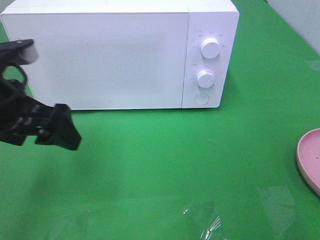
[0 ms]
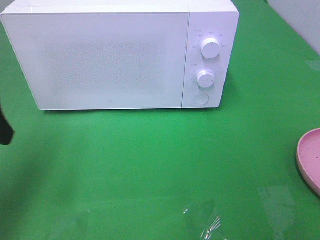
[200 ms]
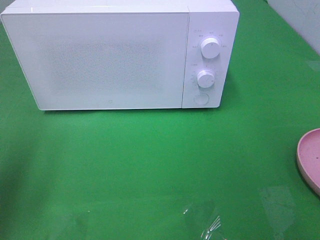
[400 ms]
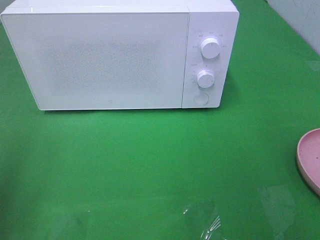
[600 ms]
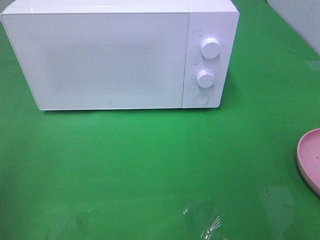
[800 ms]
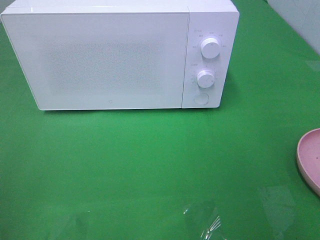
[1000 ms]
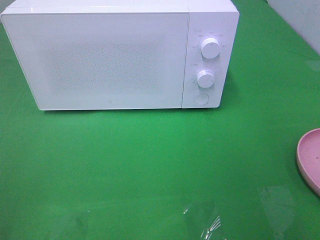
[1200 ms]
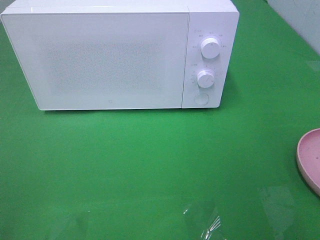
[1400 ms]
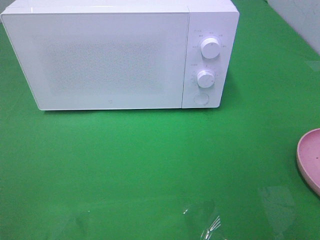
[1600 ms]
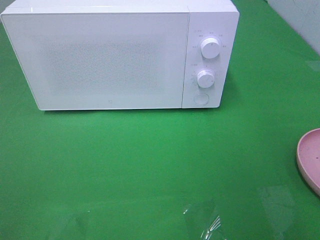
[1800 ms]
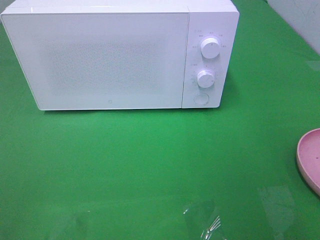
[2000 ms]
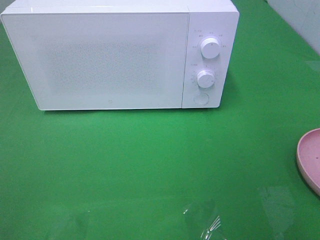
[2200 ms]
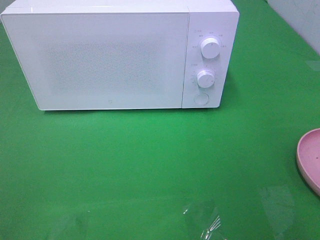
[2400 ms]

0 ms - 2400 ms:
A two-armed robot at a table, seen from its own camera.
Task of the whole recording: Heat the burger.
0 ms - 1200 ms: The left gripper heads backward and to the left, covering some 20 cm.

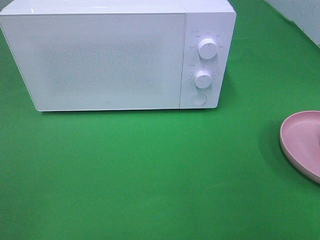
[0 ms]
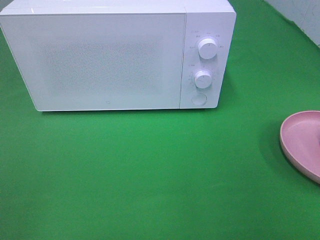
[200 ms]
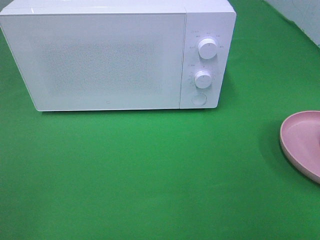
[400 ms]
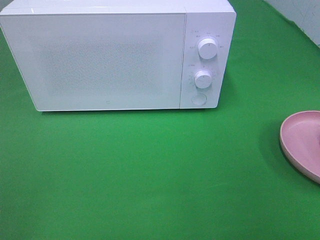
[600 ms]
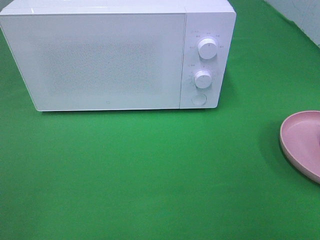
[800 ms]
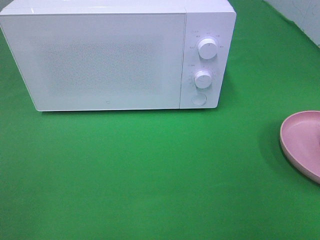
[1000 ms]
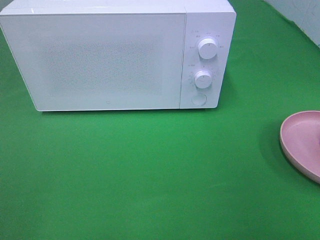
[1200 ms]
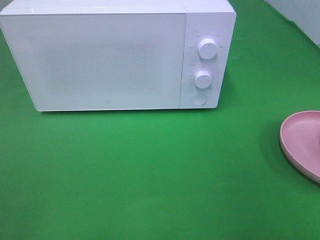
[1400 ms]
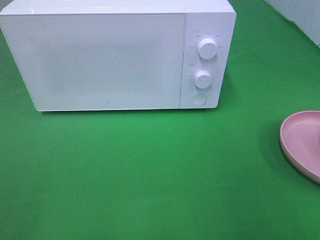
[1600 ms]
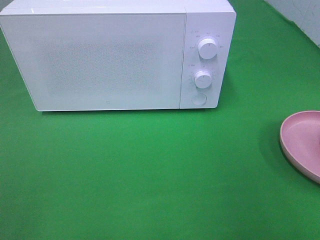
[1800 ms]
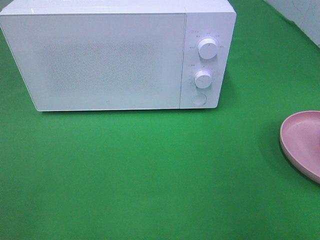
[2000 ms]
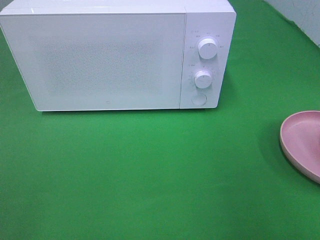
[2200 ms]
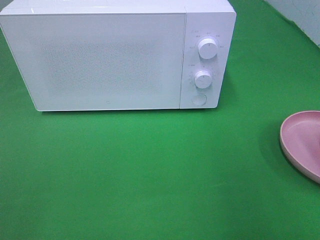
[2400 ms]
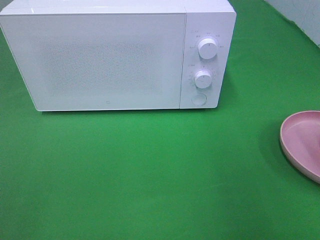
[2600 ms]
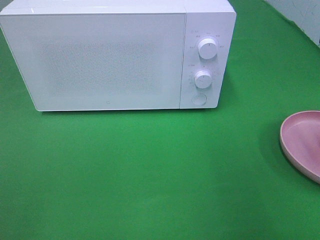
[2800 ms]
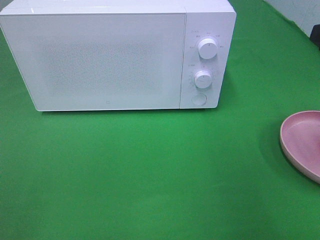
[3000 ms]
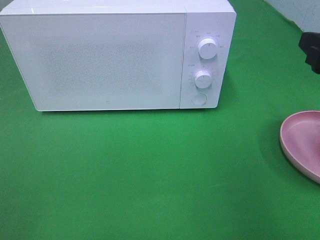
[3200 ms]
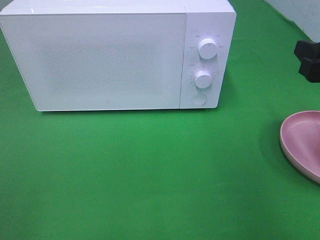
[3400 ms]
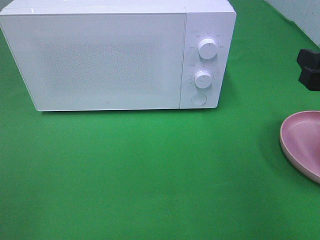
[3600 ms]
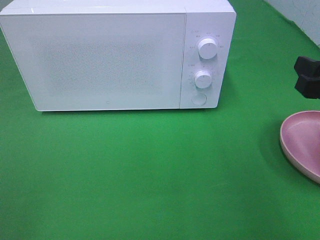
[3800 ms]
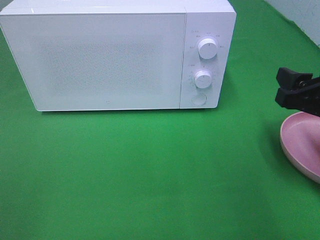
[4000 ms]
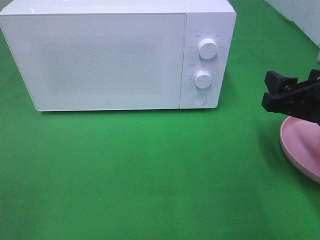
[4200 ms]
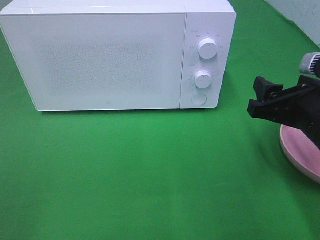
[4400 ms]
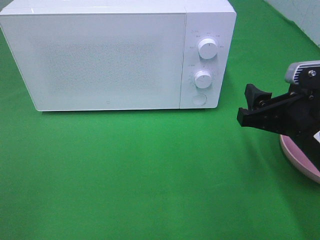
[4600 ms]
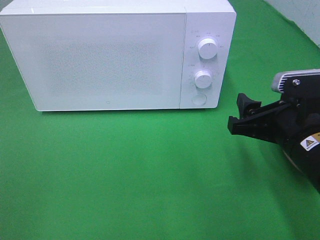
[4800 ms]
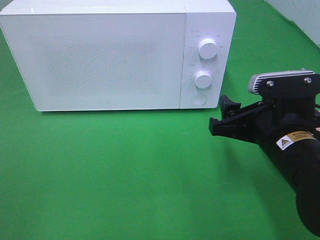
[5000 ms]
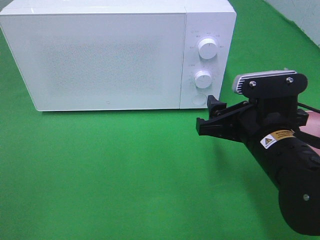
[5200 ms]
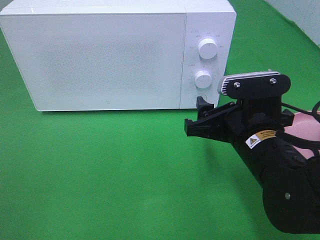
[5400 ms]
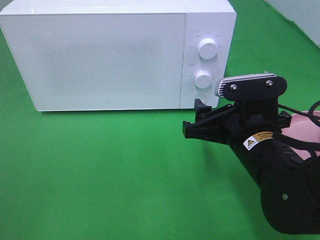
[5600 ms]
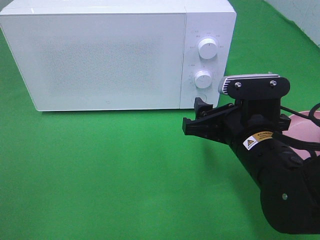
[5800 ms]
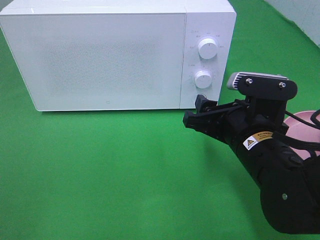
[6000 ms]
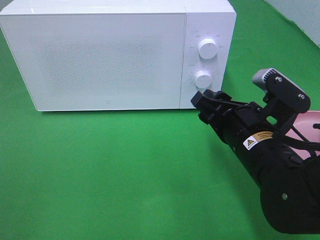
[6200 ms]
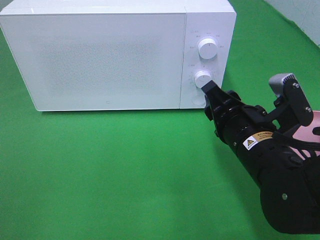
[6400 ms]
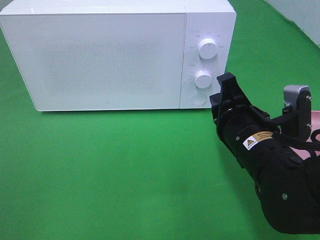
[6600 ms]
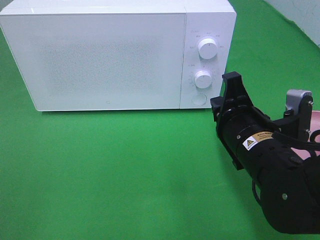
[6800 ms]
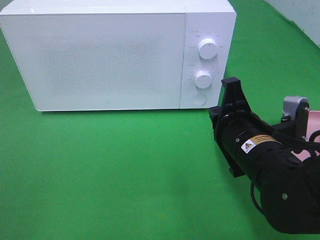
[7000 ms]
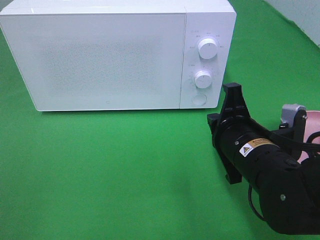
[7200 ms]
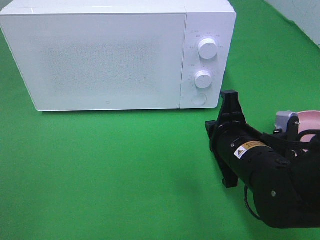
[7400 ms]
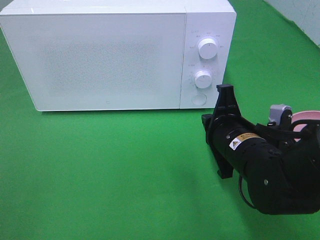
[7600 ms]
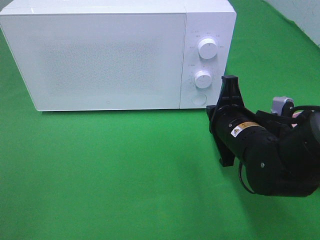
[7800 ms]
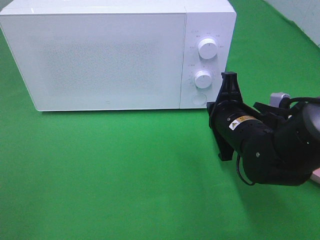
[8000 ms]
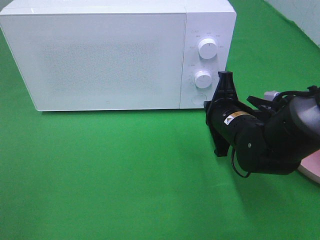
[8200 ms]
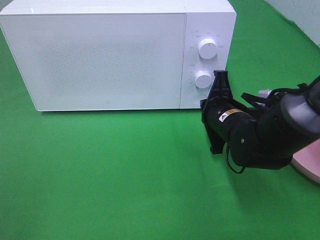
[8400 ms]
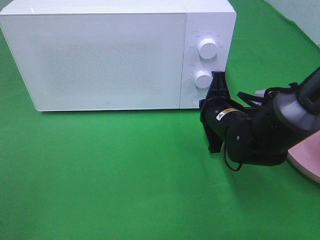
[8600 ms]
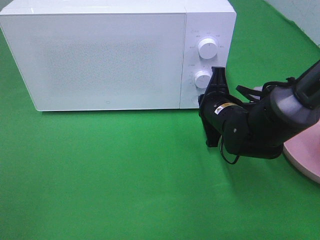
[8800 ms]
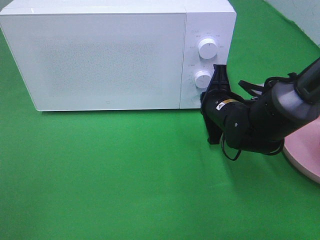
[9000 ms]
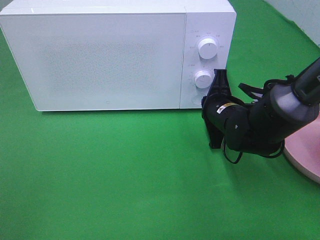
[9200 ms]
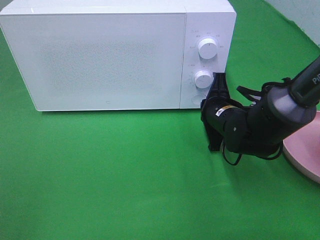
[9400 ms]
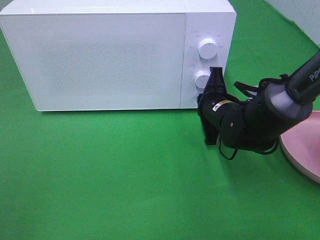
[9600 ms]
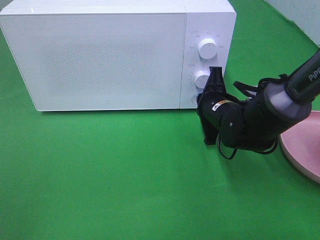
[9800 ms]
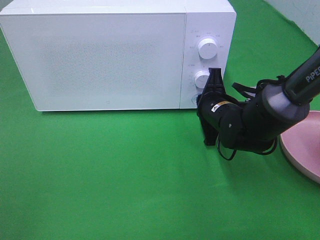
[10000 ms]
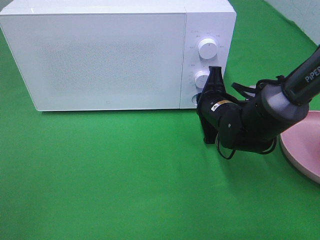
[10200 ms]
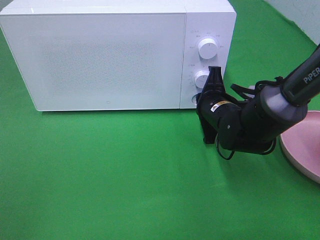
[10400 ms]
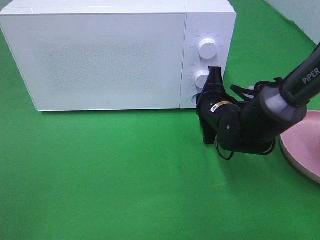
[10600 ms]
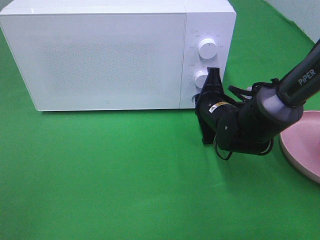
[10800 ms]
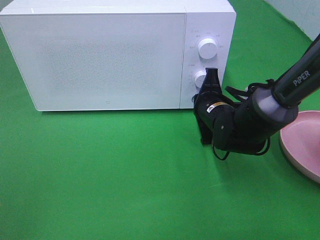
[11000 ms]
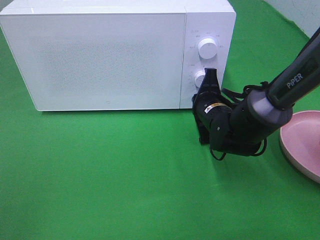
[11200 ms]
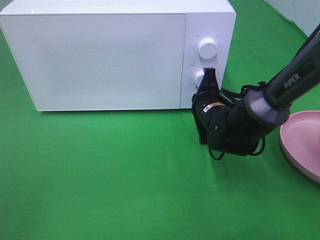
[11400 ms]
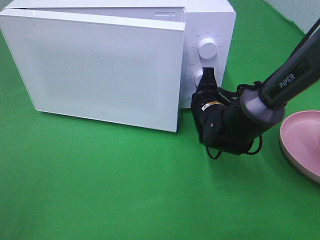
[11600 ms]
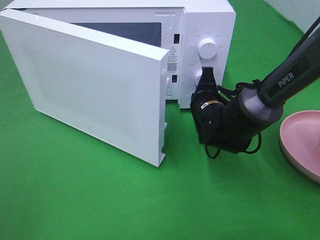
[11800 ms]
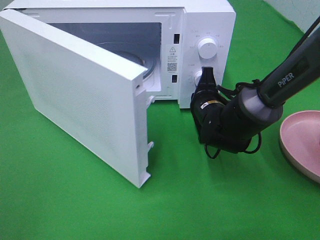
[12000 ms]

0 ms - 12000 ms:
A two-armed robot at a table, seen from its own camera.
Task of the whole recording: Heat the burger.
3000 ms - 4400 ms: The right gripper moves downward and to the left, roughly 10 cm.
4400 ms - 6000 ms: The right gripper moves to the left, about 10 cm.
6000 ms - 7600 ms: The right gripper closes up.
7600 ms - 9000 ms: The right gripper moves forward, about 10 cm.
9000 ms - 10400 ms: There are only small adjustments of the grippers.

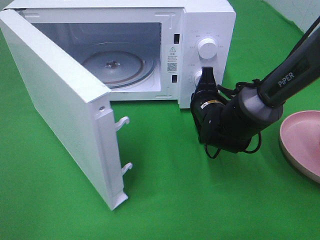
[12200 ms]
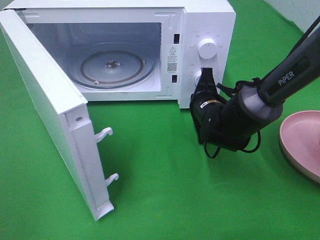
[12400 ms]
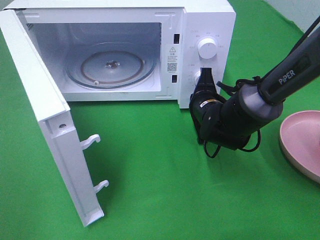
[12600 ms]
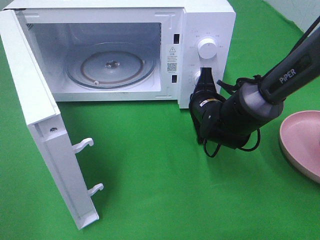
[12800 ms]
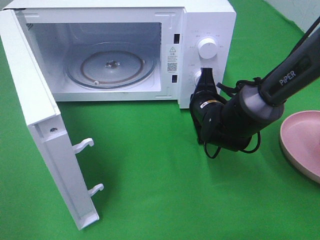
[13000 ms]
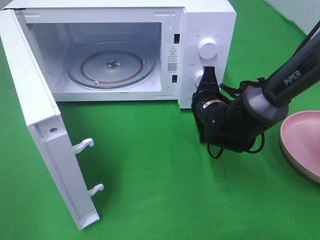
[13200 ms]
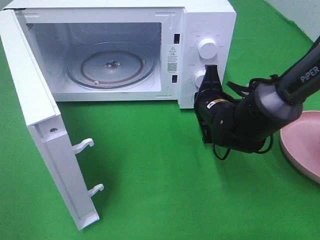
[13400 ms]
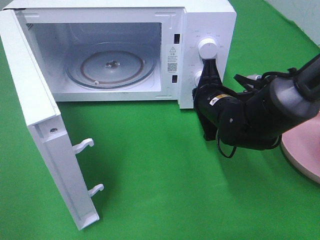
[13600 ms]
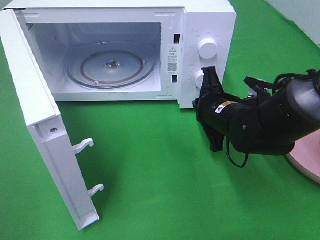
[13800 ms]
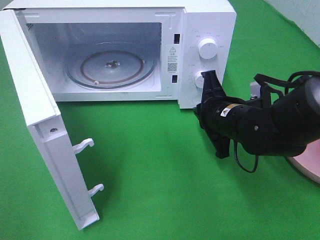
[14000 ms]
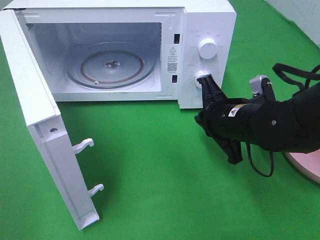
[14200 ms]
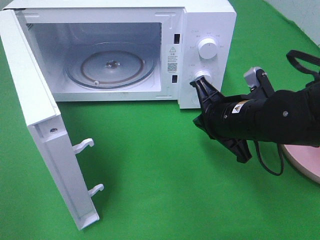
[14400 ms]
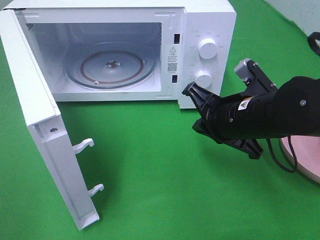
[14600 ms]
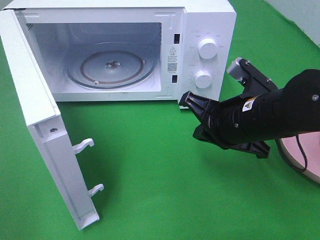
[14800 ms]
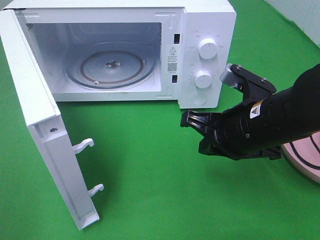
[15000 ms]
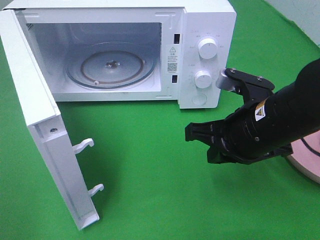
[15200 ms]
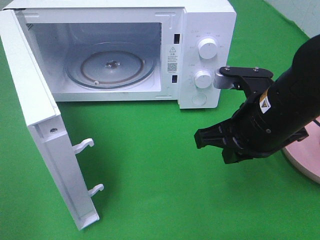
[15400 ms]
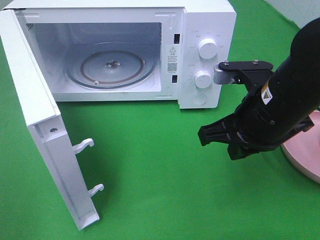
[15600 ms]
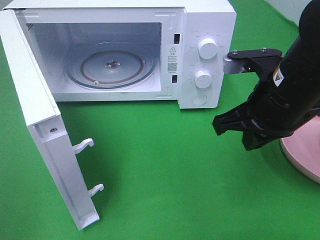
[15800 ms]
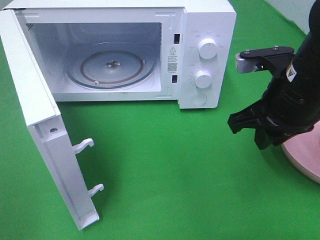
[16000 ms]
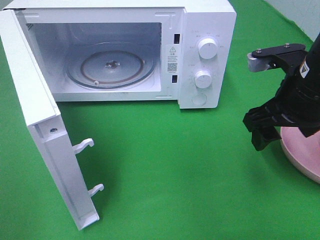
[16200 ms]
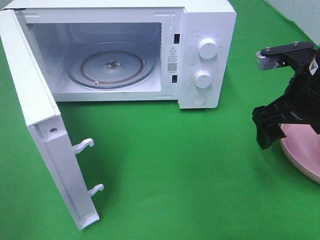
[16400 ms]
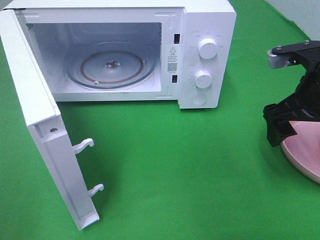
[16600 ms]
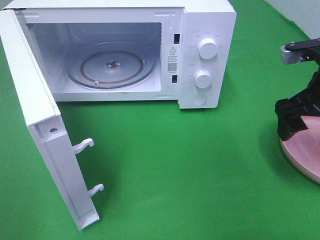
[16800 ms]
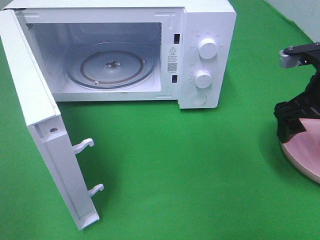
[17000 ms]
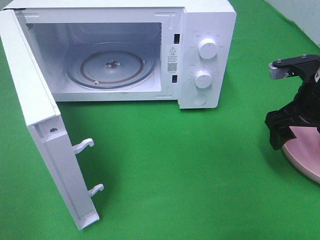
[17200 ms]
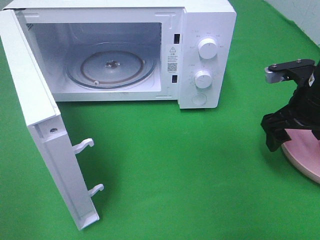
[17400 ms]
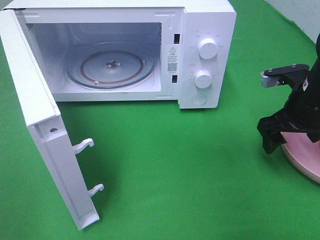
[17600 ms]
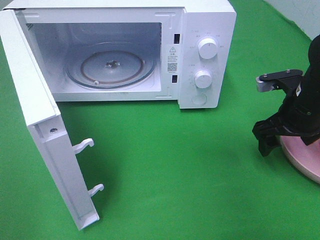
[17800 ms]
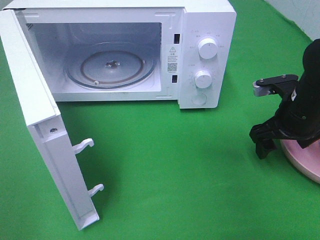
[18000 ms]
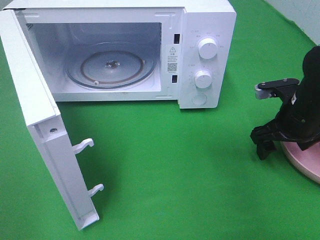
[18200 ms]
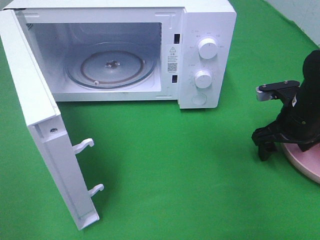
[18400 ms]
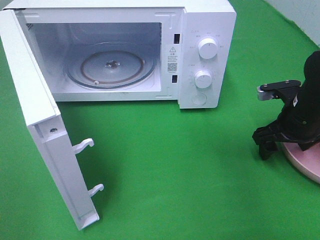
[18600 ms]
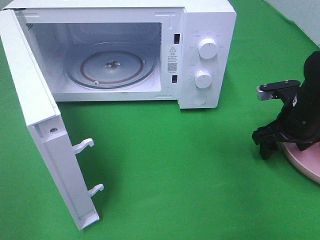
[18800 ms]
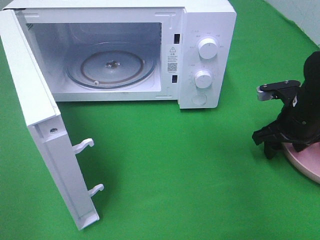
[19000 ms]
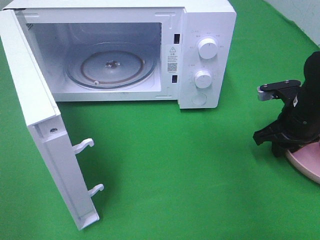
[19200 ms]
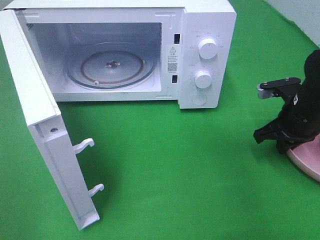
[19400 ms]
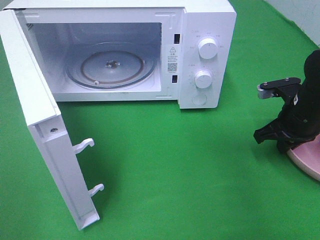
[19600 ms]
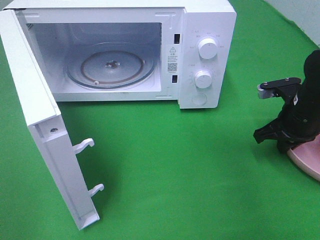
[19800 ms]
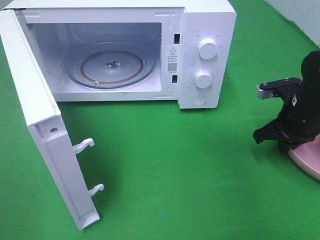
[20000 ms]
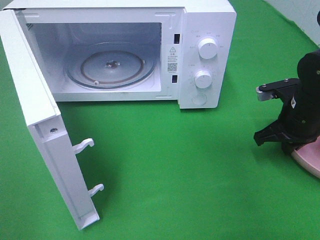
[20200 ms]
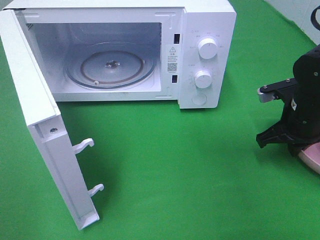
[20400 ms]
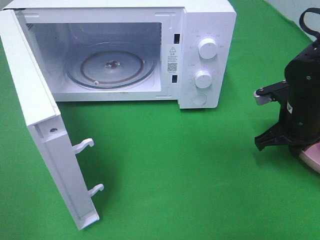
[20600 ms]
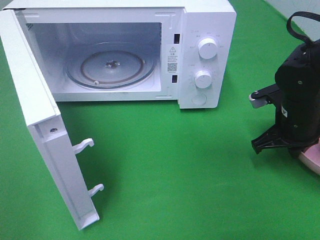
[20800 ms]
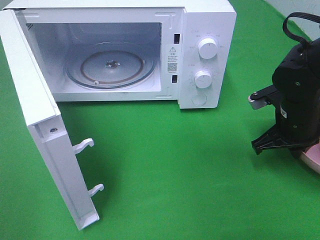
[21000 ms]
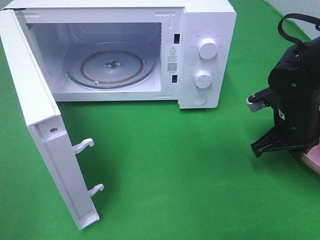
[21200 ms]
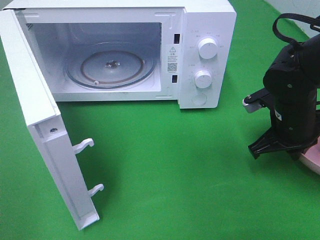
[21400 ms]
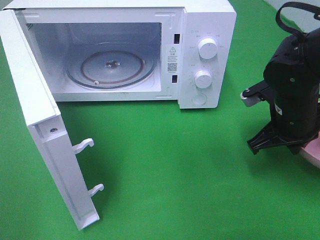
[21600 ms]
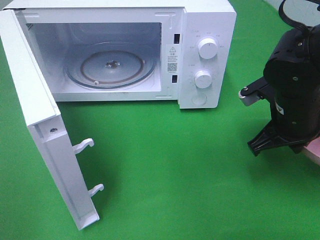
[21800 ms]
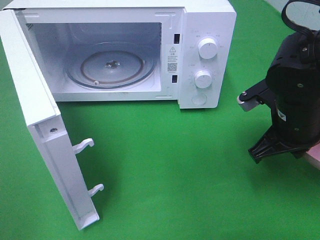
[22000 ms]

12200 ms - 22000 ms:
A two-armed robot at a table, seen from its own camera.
Task of the whole recording: Heat the burger.
Step, 12200 ms - 14200 ms: Right hand: press the switch.
Step, 14400 ms - 20200 ms: Right hand: grab the plate with the hamburger.
13600 ms - 15000 ms: The right gripper goes approximately 10 cm backward and upward.
15000 ms - 16400 ms: The right gripper goes about 10 cm to the right, and opens its fingers.
16400 ms - 17800 ms: The right gripper goes some 10 cm downward.
17800 ms - 19200 ms: The right gripper closes.
19200 ms - 20600 ms: The grippers make only small movements.
20600 ms - 22000 ms: The right gripper shifts some 5 cm backward.
